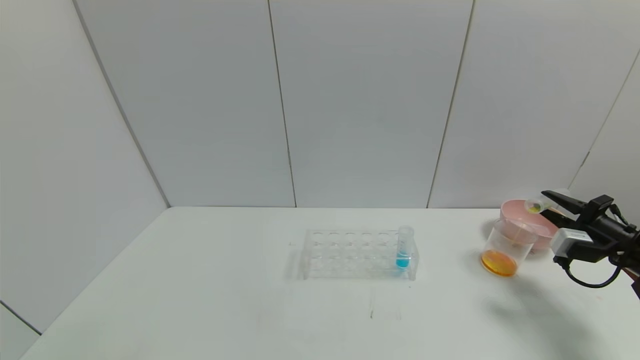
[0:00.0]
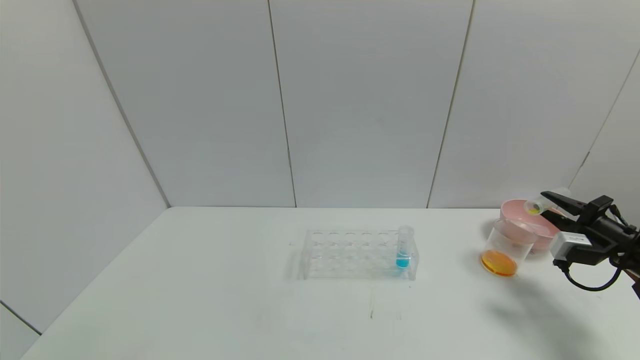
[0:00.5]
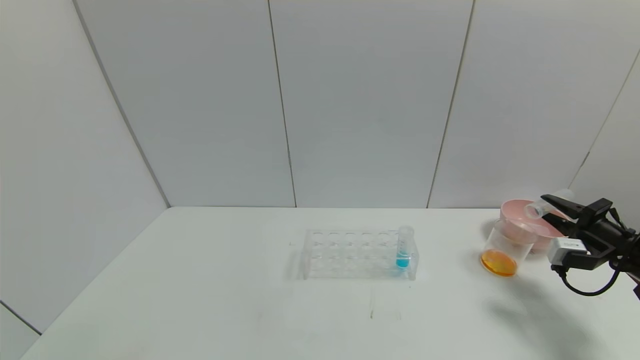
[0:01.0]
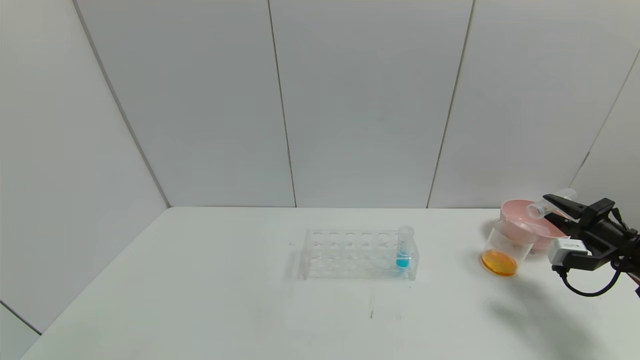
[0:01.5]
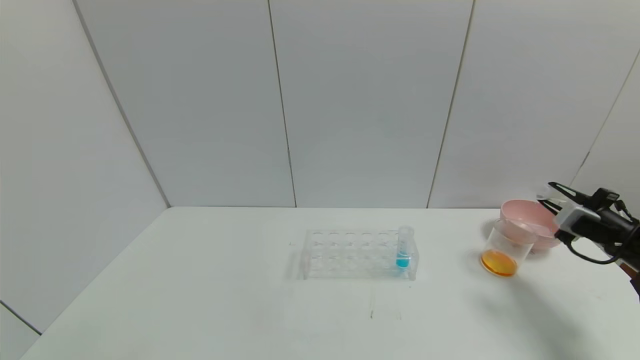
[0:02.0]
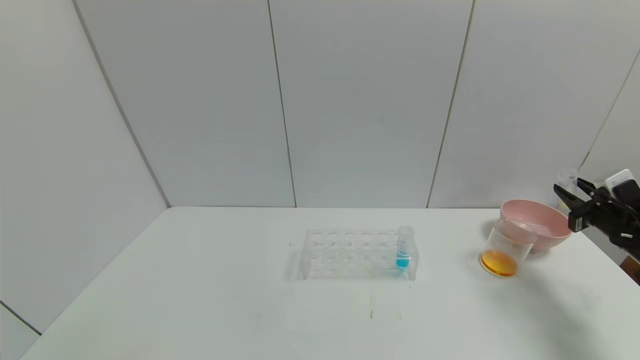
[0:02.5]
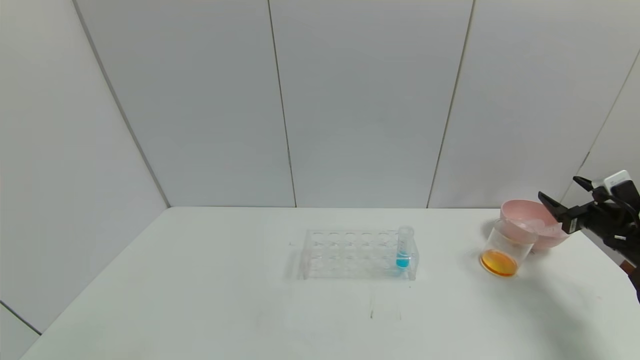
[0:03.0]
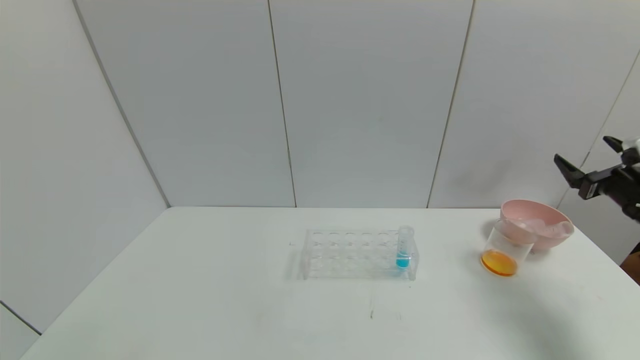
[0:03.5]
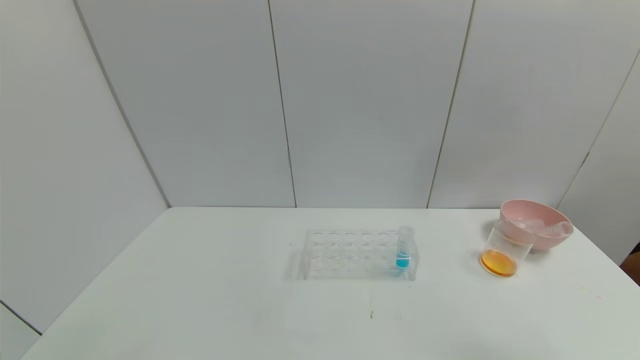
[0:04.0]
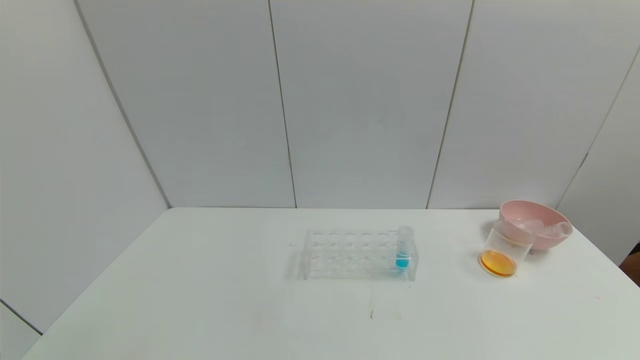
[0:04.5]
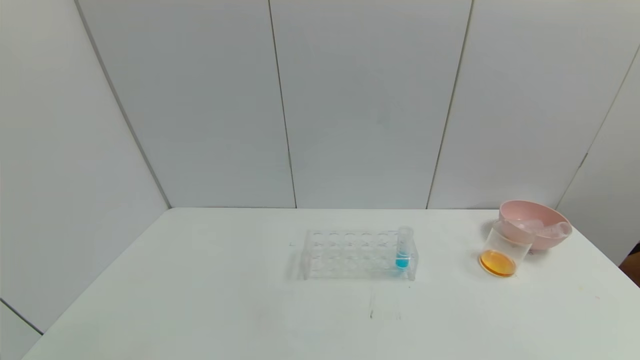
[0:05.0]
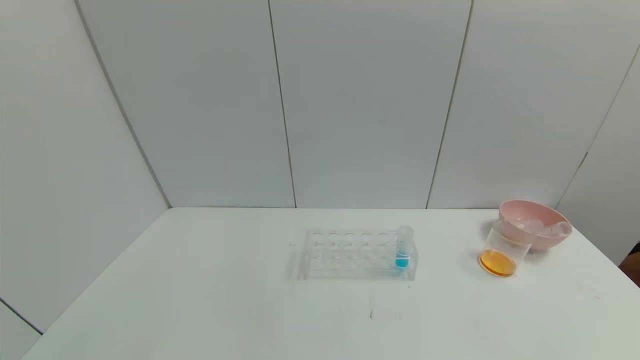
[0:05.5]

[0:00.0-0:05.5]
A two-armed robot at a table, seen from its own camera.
Task of the whole recording: pick up the test tube with yellow pigment and the test tube with red pigment by grippers and pour them into the beaker.
Step, 0:00.0 to 0:02.0: Pour the yellow reagent into the graduated cylinder with right gripper.
Step, 0:02.5 to 0:03.5: Place the test tube into the bowl with right gripper.
0:00.0 to 0:02.0: The grippers stay close to where they were, moving slightly.
0:02.0 to 0:03.5: The right gripper heads upward, covering some 5 cm, and opens its fingers.
0:03.5 to 0:05.5: The right gripper travels backward by approximately 35 cm.
